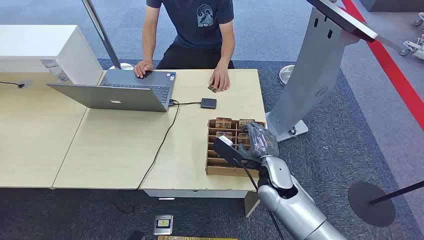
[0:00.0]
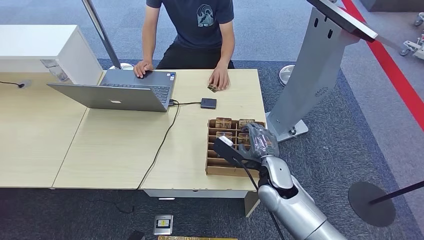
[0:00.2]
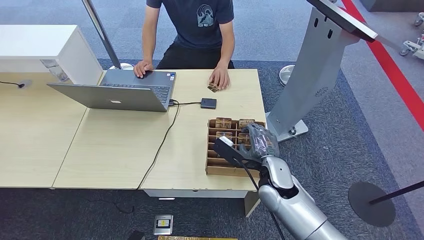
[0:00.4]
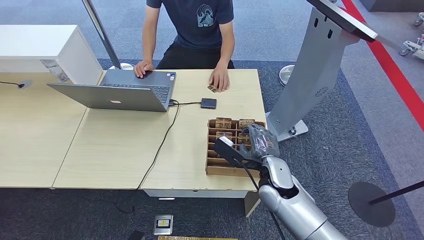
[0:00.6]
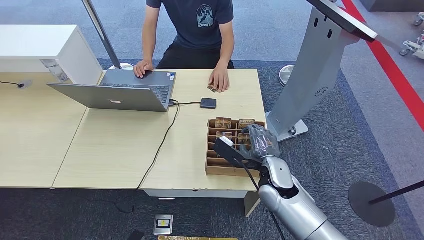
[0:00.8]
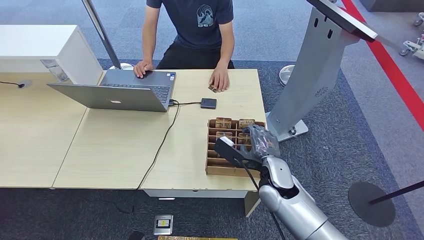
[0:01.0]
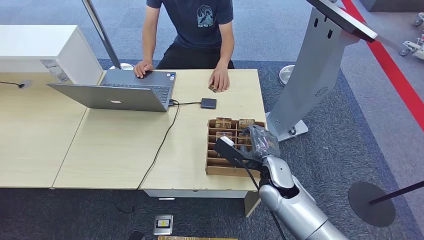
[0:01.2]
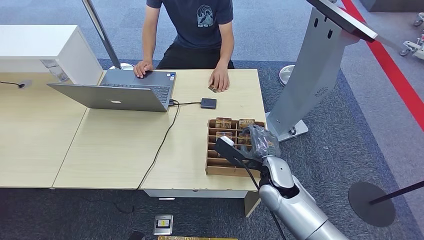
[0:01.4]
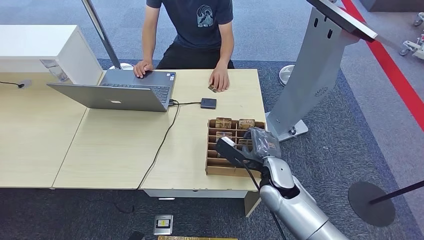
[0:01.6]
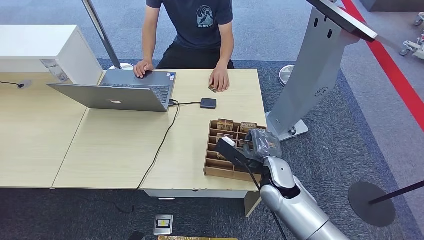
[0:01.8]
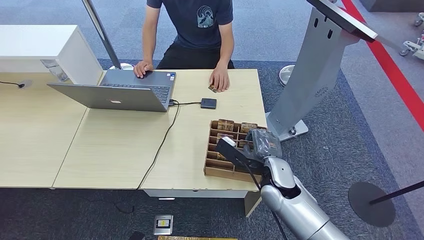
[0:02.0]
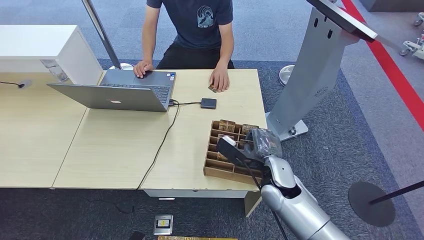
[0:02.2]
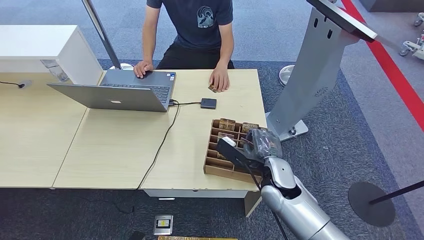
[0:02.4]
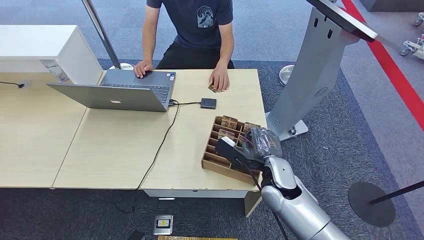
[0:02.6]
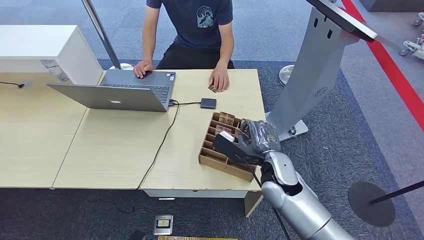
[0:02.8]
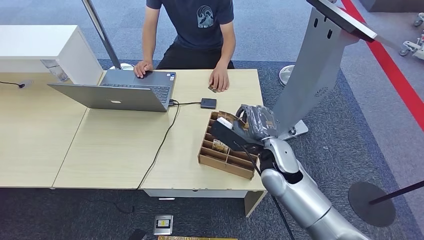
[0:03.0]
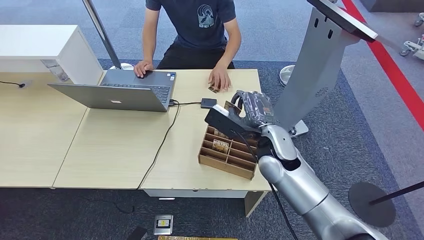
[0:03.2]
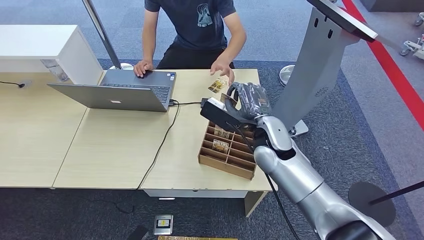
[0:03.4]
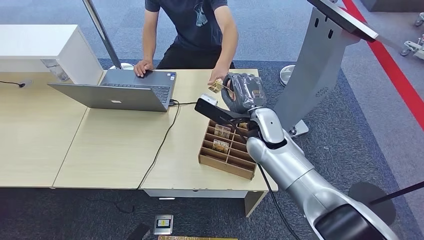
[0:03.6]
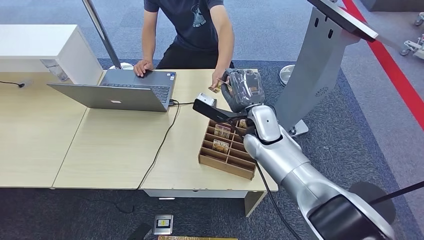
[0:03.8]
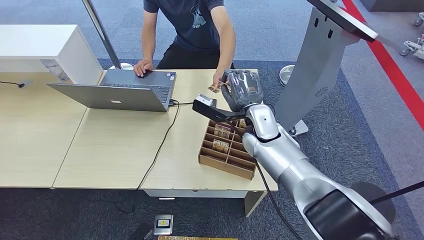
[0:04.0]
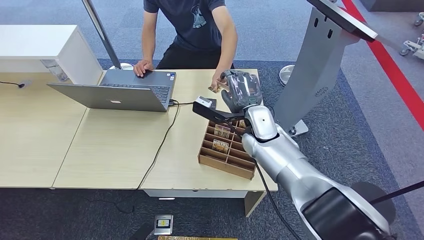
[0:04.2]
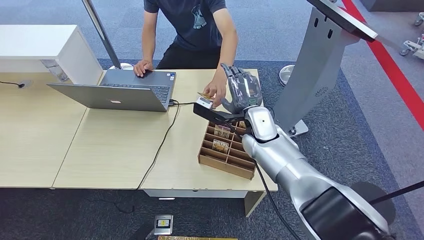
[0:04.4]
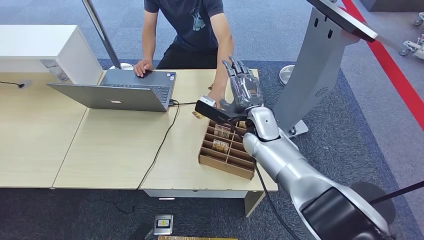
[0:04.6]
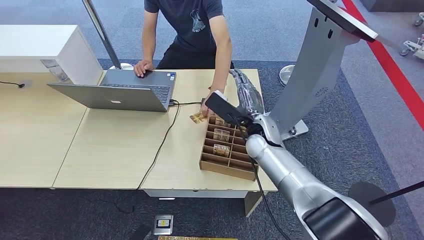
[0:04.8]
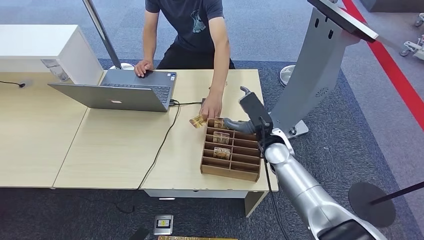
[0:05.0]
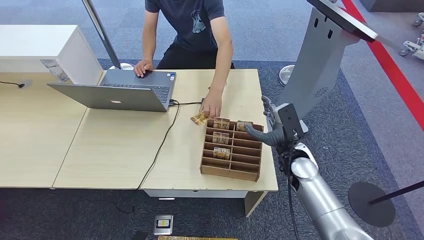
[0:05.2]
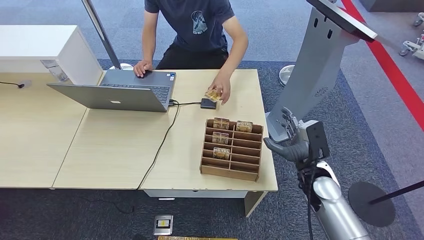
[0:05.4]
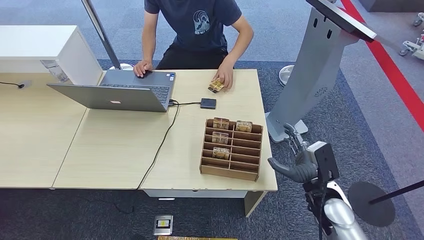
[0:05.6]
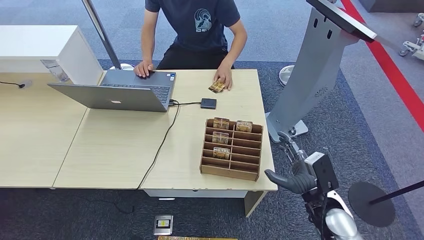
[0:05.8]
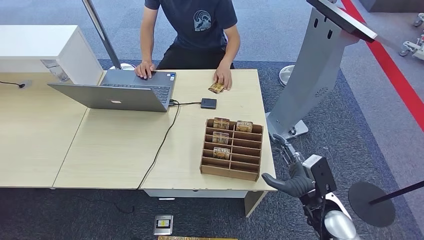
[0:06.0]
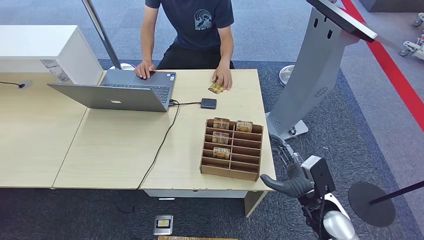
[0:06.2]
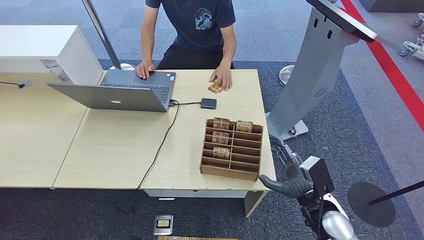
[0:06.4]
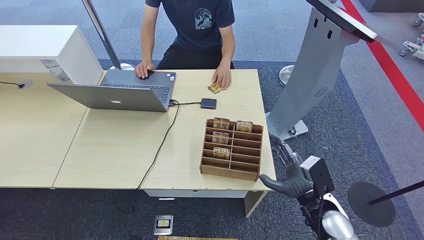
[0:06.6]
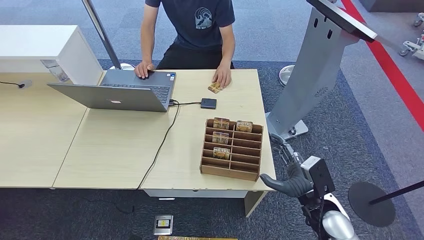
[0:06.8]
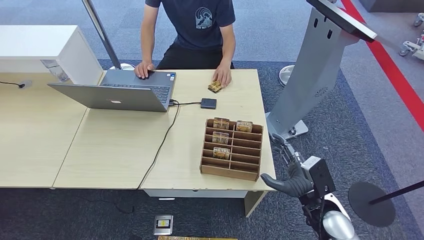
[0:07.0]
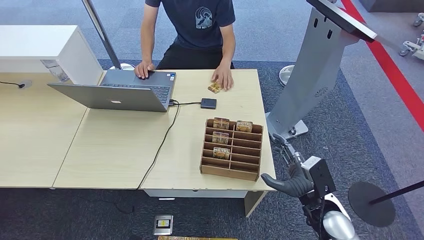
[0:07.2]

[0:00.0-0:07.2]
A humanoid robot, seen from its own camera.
Step, 0:00.0 to 0:03.8: Pick up the key card from the card box.
Step, 0:04.0 to 0:07.2: Hand the key card to the target.
0:01.4 to 0:02.8: There are only small adjustments of the hands.
0:02.8 to 0:04.4: The right hand heads forward and upward, covering about 10 cm.
0:04.4 to 0:05.8: The right hand goes some 25 cm backward, to the right and downward.
0:05.8 to 0:07.2: The two hands keep their place.

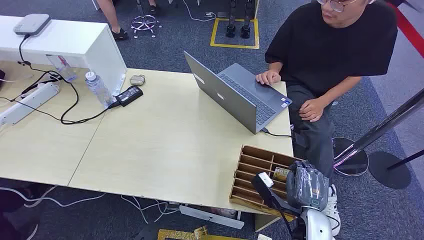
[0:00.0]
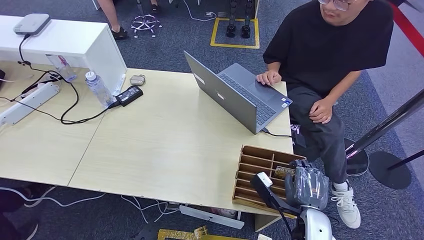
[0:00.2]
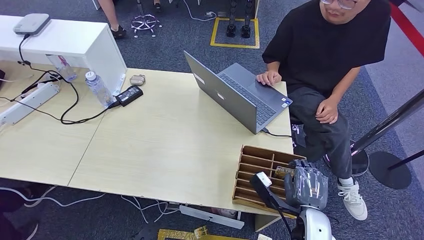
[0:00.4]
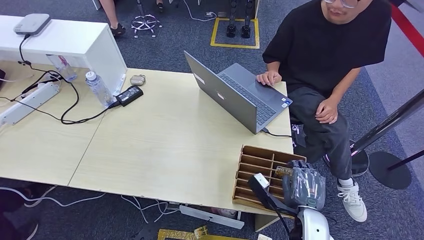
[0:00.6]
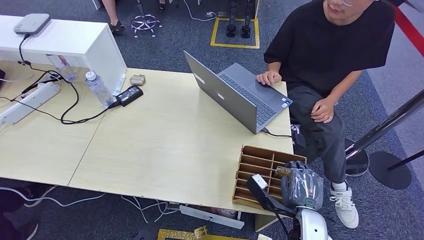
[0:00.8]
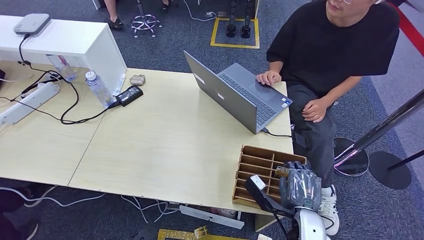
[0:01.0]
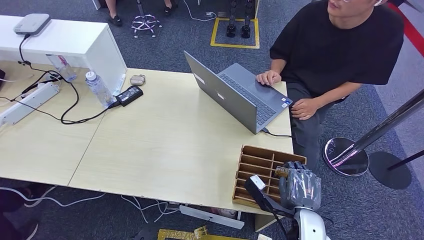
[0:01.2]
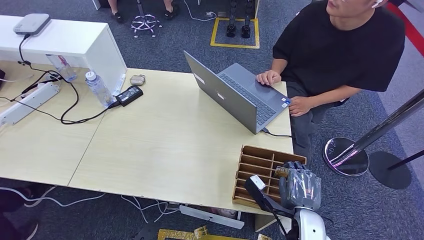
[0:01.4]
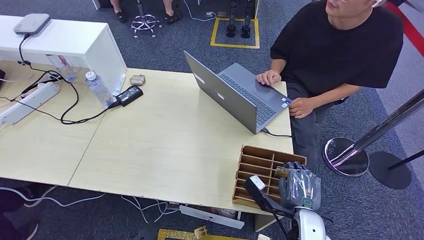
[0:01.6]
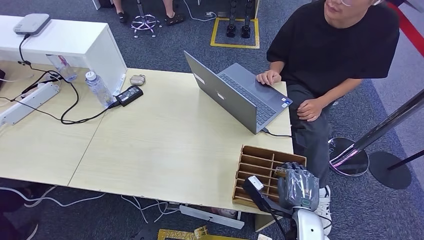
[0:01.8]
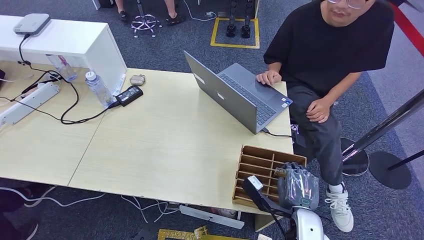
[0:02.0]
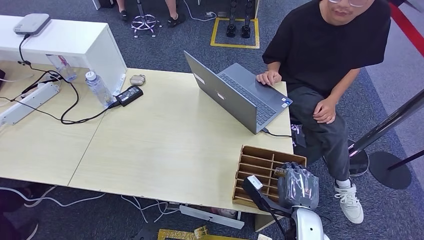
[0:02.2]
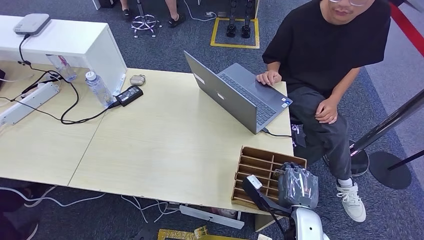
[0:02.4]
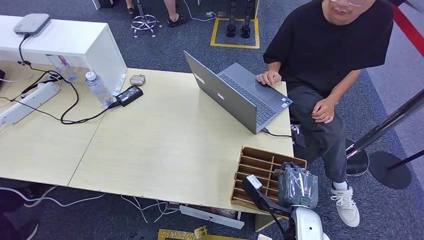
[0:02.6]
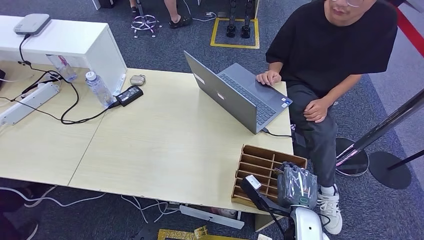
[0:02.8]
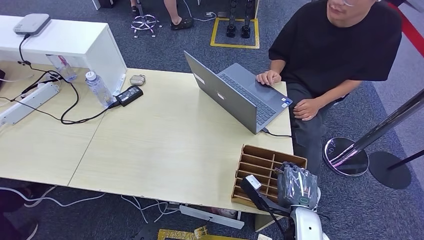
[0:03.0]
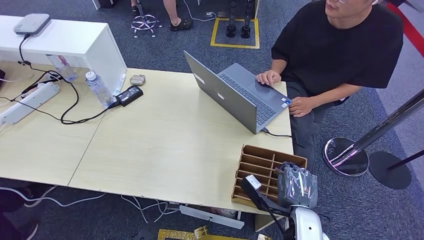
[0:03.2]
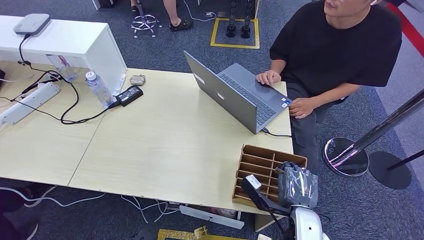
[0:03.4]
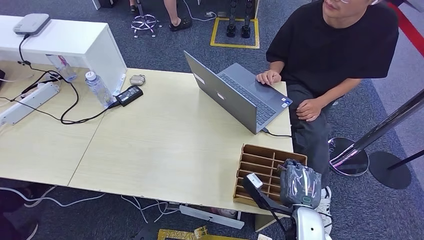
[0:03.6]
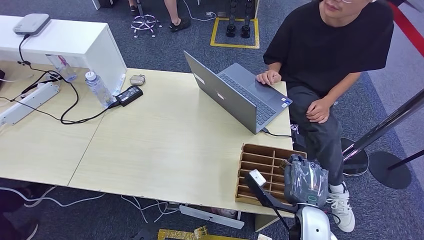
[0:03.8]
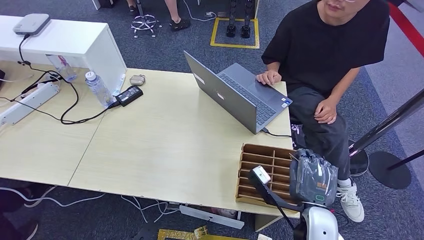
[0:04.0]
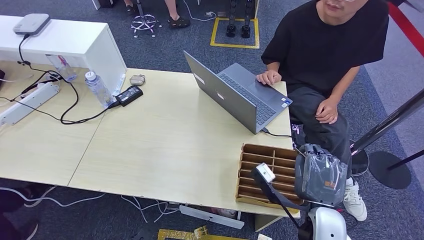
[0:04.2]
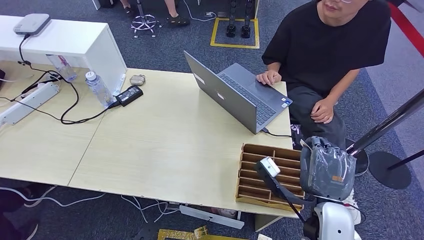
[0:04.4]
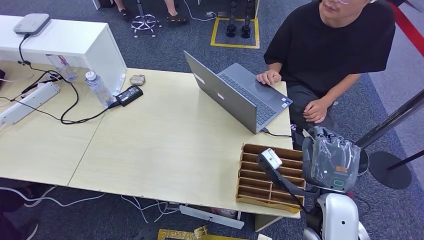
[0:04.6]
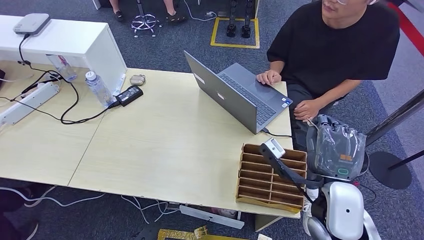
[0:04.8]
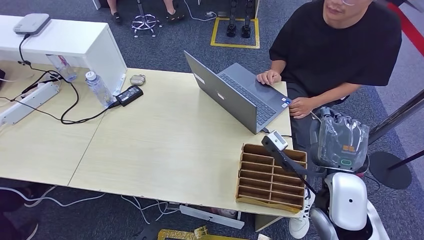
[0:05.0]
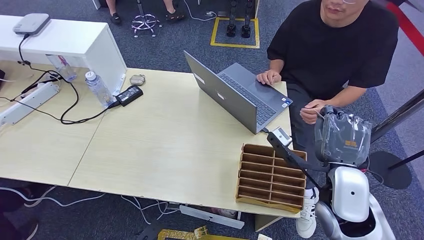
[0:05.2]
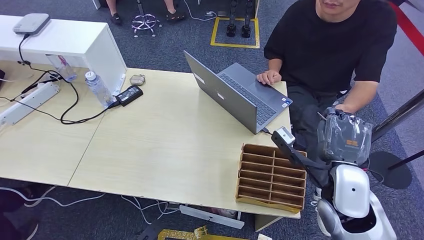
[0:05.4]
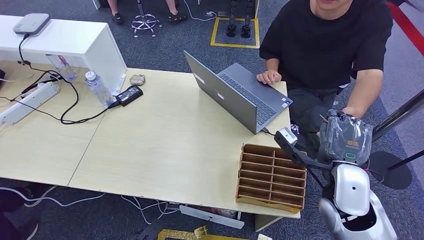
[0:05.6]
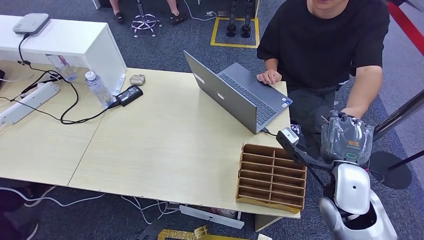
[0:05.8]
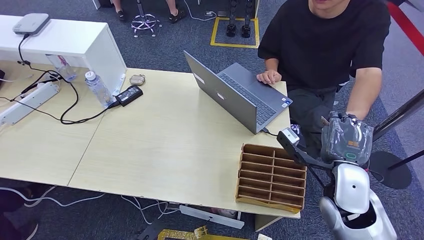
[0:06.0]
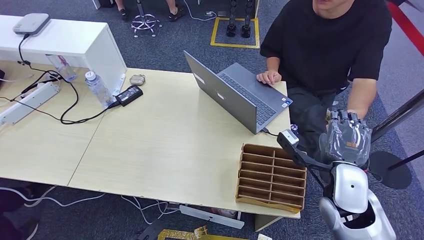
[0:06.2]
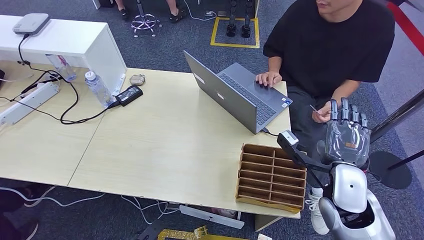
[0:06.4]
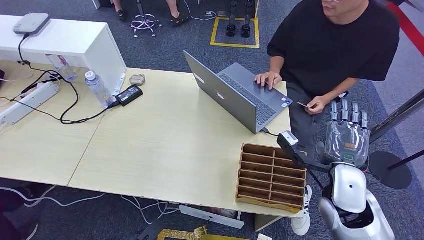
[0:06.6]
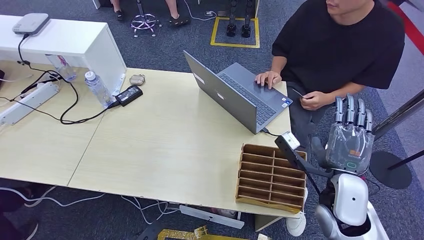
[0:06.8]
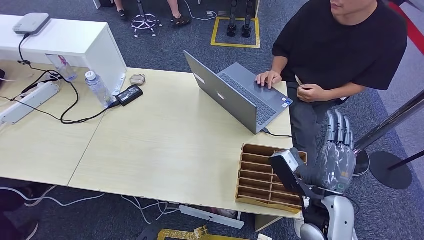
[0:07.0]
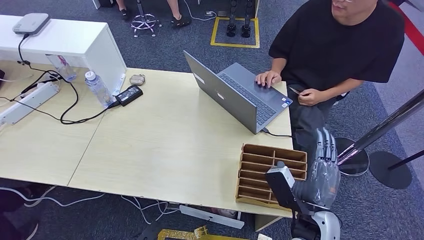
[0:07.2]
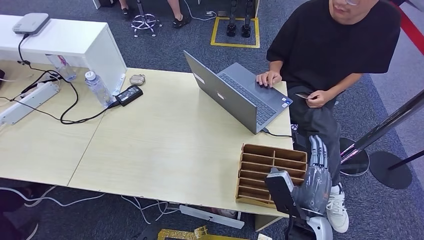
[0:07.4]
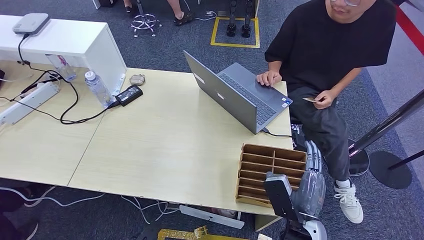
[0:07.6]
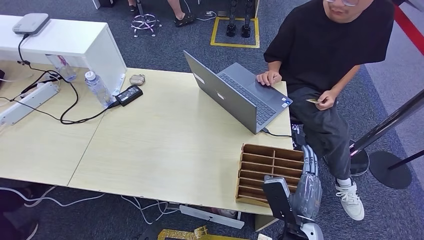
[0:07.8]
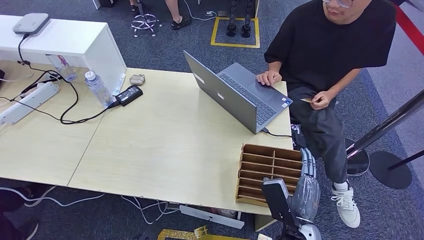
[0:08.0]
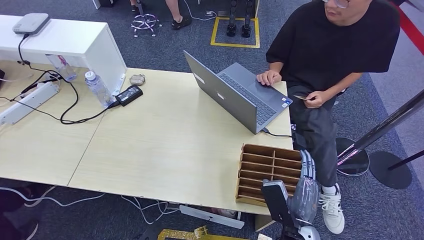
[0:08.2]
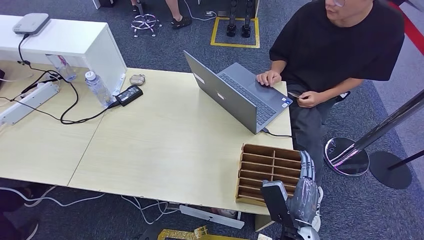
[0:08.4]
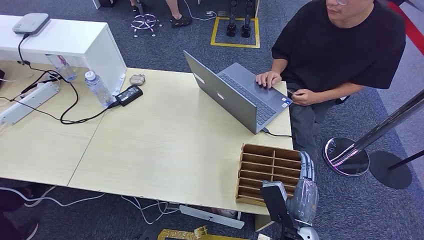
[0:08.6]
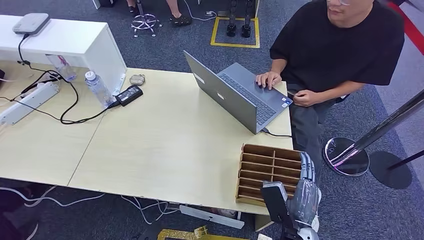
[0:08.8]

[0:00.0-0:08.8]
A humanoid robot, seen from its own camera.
Step, 0:00.0 to 0:04.6: Pick up the key card from the card box.
Step, 0:04.8 to 0:08.6: Hand the key card to the target.
0:01.4 to 0:03.0: Both hands stay about where they are.
0:03.0 to 0:04.4: The right hand shifts about 10 cm upward.
0:04.4 to 0:05.8: The right hand moves forward, roughly 10 cm.
0:05.8 to 0:07.4: The right hand heads backward, downward and to the left, covering about 15 cm.
0:07.4 to 0:08.8: The hands stay close to where they were, moving slightly.
